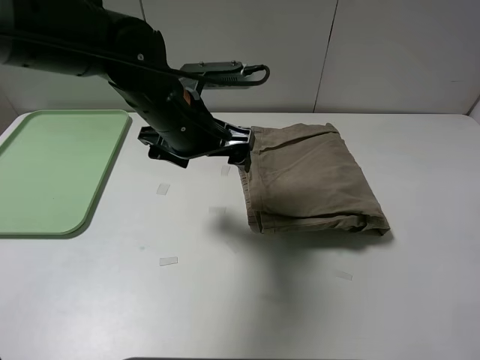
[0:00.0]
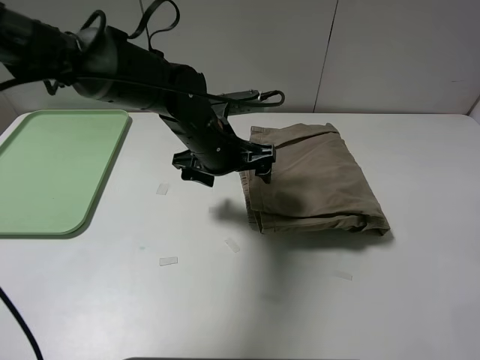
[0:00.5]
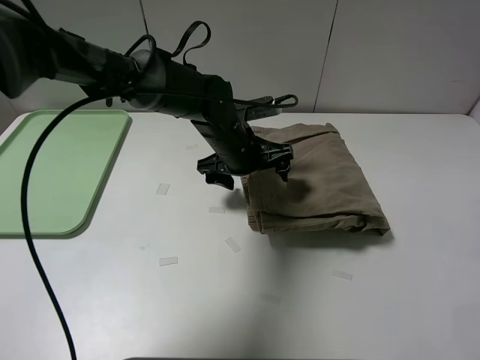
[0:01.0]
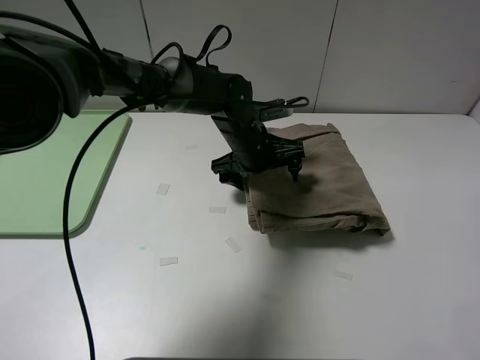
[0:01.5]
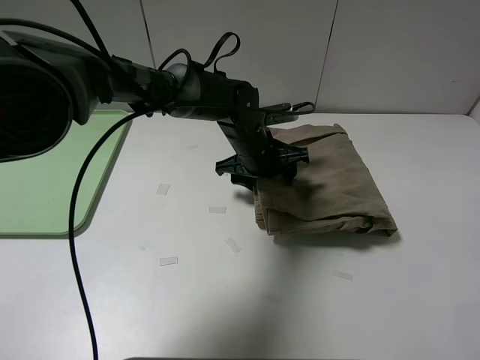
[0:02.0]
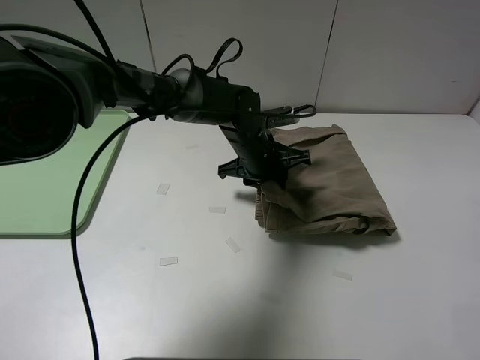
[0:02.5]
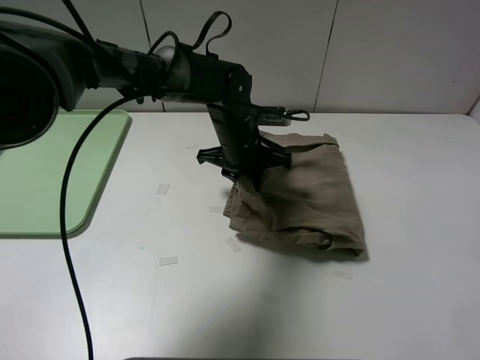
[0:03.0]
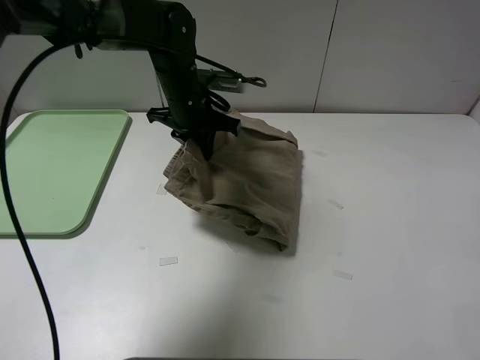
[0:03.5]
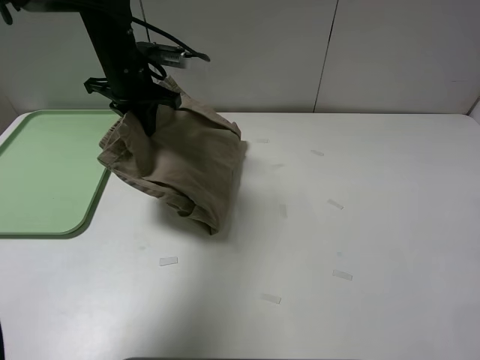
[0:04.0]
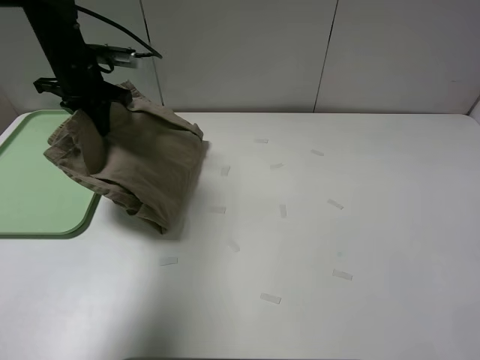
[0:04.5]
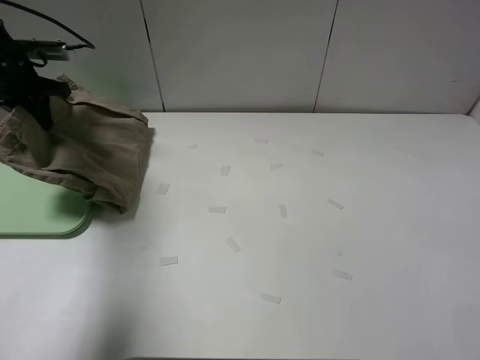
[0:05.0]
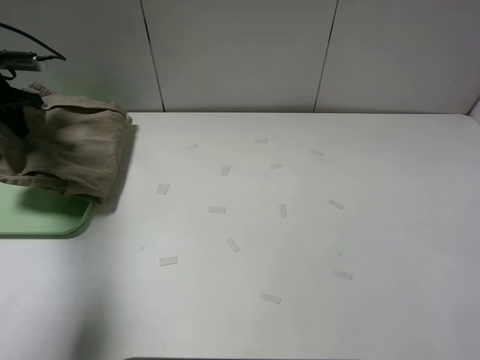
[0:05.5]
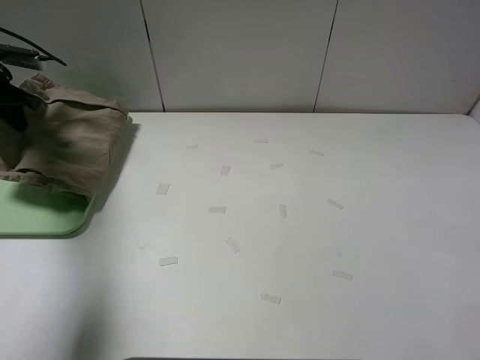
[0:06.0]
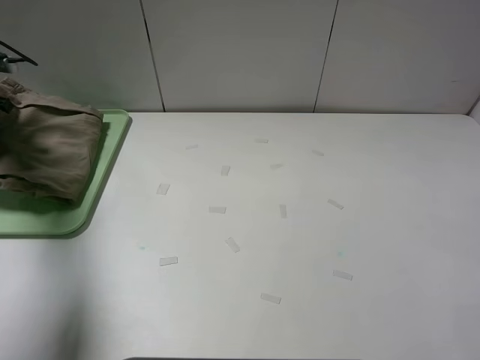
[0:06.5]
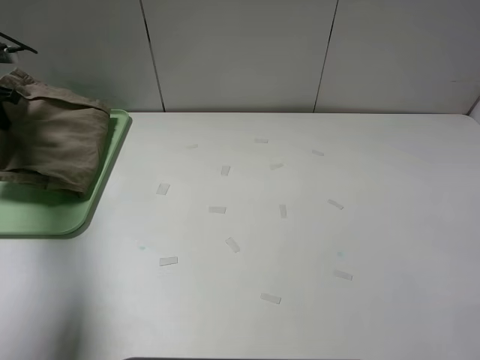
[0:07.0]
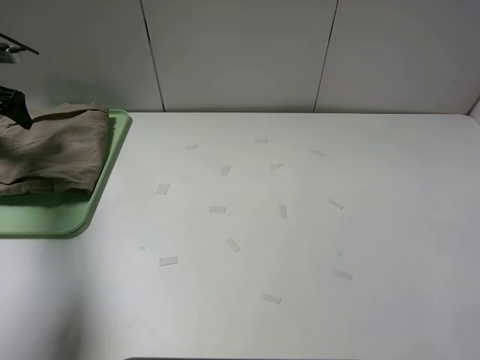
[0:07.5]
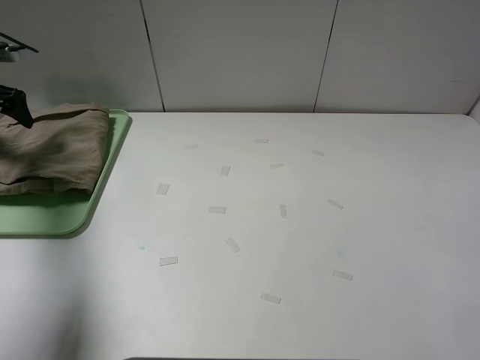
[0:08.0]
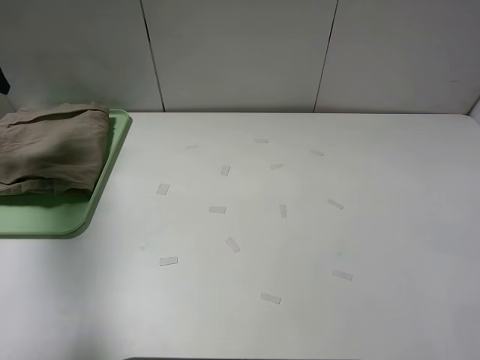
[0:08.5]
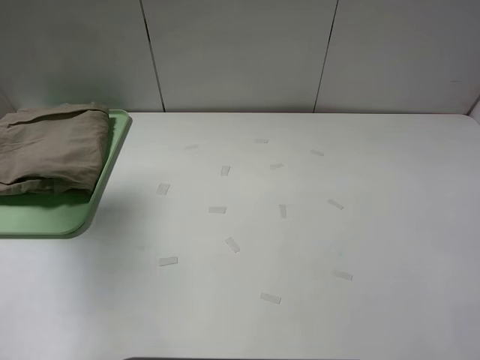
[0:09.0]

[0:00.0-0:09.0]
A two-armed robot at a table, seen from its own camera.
Task of the whole recording: fold the khaki jeans in half with two grippers, then fold them in half again, and use the left claw to place the folded fold khaki jeans on the tray.
Step, 0:00.0 to 0:02.5: Grasp the khaki trousers with the left gripper.
Step, 0:03.0 to 0:07.0: Place the folded khaki trousers on the green tray with the left gripper.
0:00.0 to 0:02.0: The left gripper travels downward, to the right and forward by about 15 cm, and closes.
0:02.0 to 0:04.5: The left gripper heads to the left, covering some 30 cm, and closes.
0:04.5 to 0:07.0: The left gripper shifts about 20 cm to the left.
0:07.0 to 0:09.0: The left gripper travels upward and backward by roughly 20 cm, and opens.

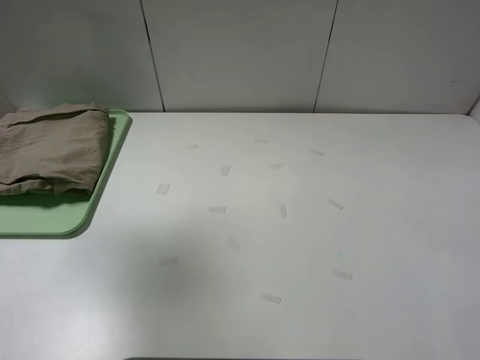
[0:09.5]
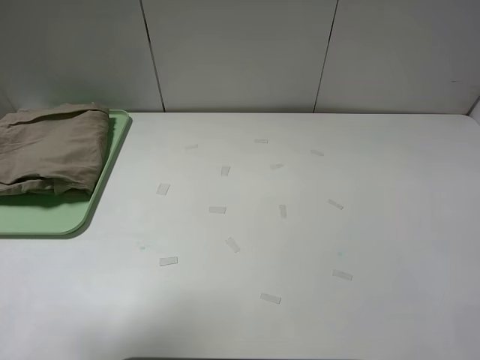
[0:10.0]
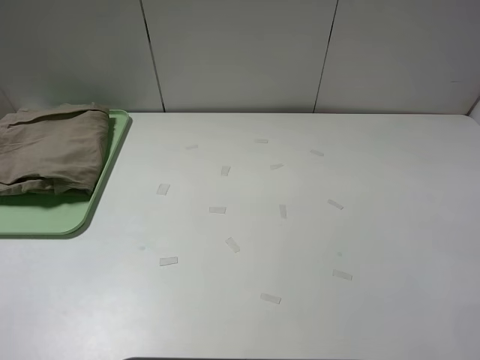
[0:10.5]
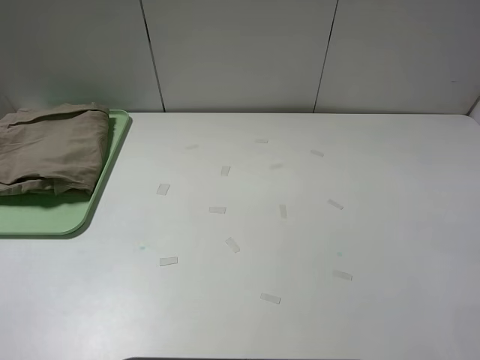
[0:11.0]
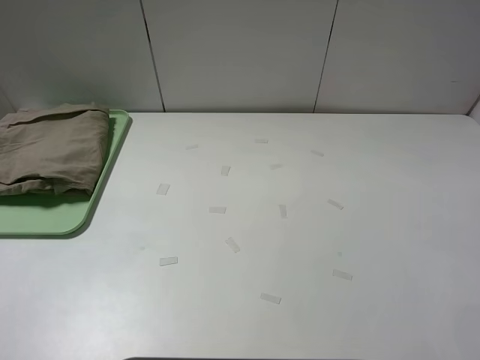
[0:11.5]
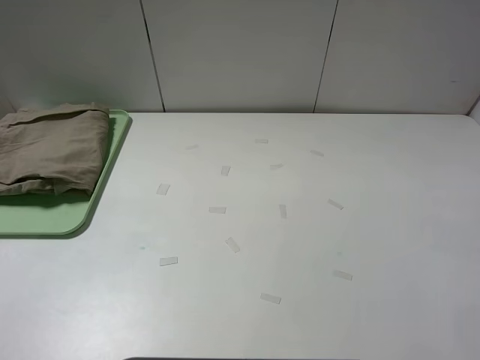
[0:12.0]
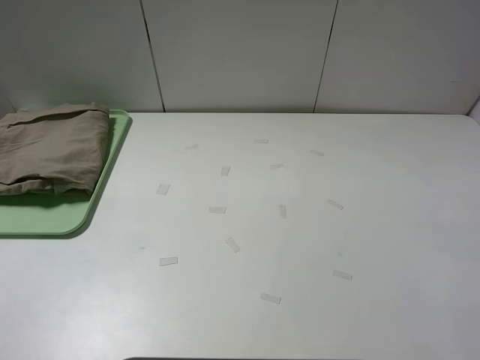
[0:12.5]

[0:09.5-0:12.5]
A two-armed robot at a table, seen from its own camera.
Task of the whole recording: fold the khaki jeans in half with two grippers, then fold them in half again, and use the left claw to place the folded fold khaki jeans on the tray.
0:09.5 to 0:11.0: The left gripper moves backward, some 30 cm.
